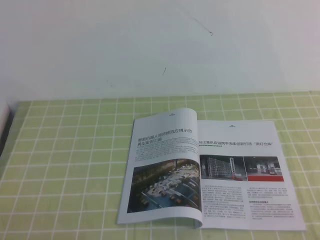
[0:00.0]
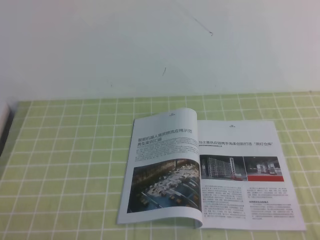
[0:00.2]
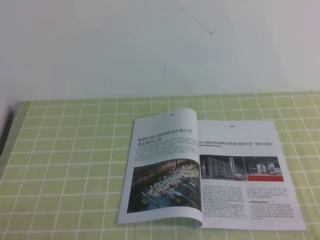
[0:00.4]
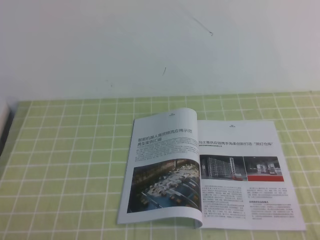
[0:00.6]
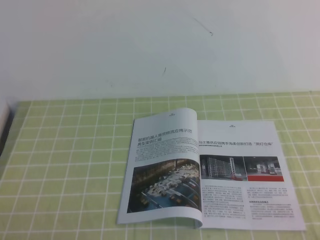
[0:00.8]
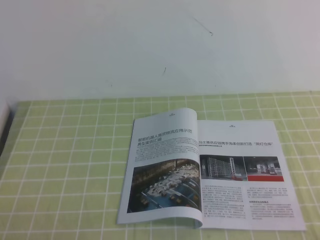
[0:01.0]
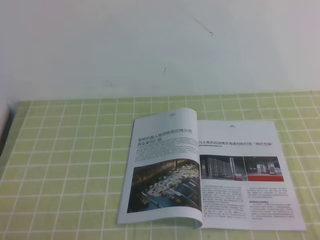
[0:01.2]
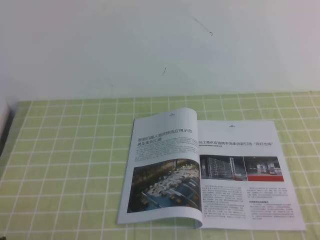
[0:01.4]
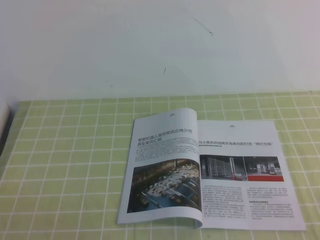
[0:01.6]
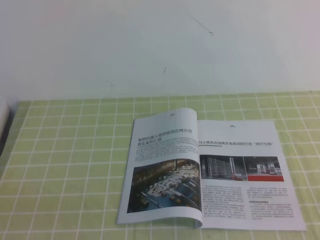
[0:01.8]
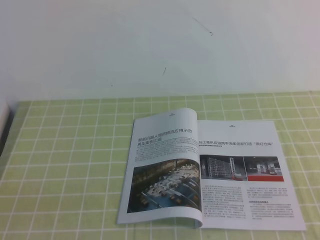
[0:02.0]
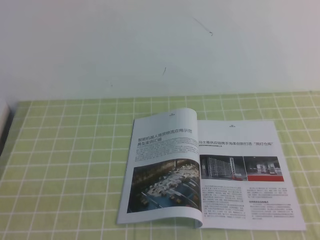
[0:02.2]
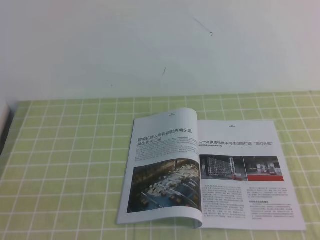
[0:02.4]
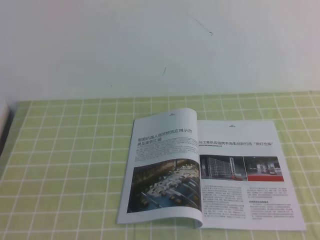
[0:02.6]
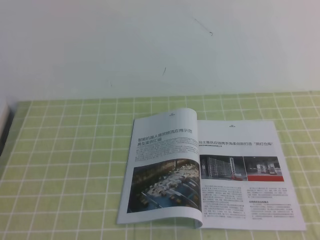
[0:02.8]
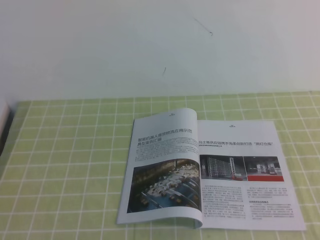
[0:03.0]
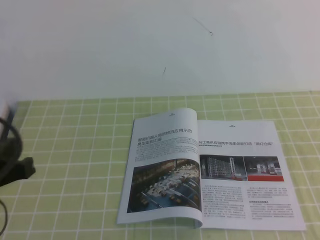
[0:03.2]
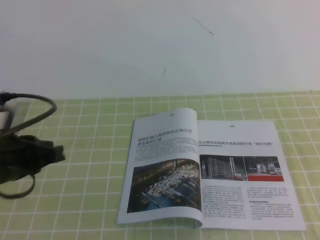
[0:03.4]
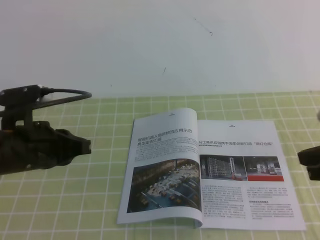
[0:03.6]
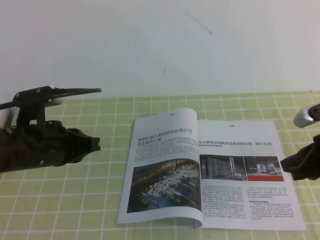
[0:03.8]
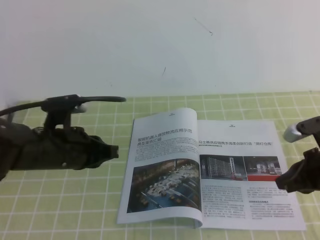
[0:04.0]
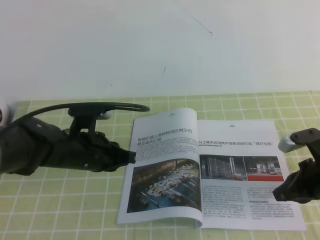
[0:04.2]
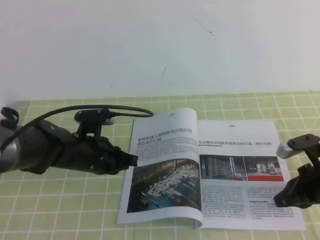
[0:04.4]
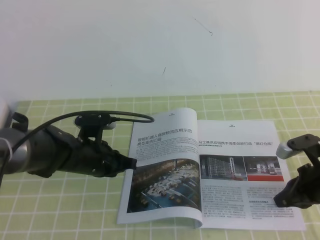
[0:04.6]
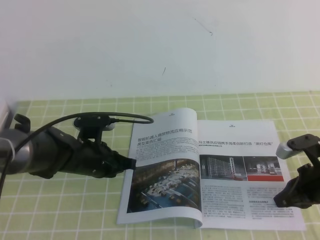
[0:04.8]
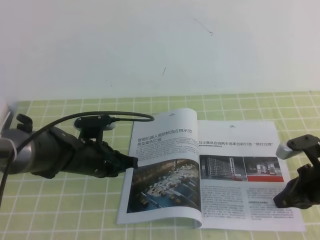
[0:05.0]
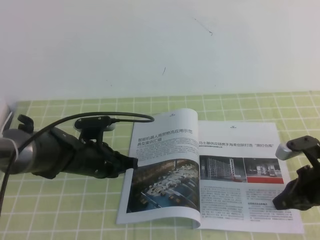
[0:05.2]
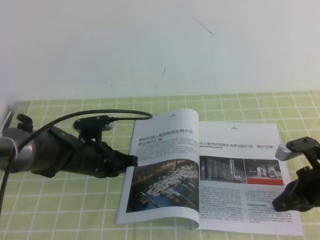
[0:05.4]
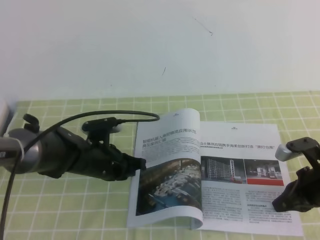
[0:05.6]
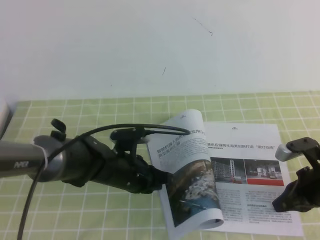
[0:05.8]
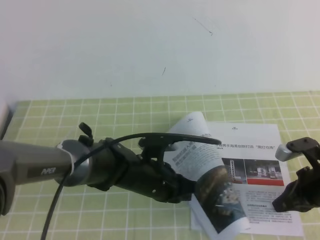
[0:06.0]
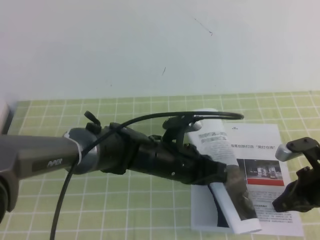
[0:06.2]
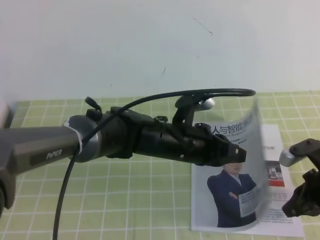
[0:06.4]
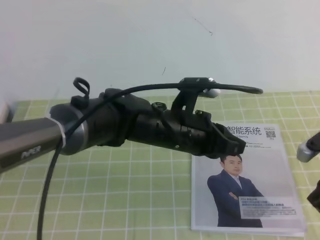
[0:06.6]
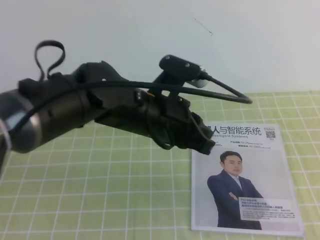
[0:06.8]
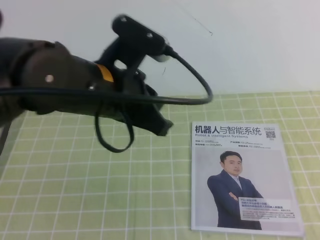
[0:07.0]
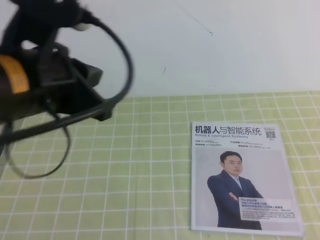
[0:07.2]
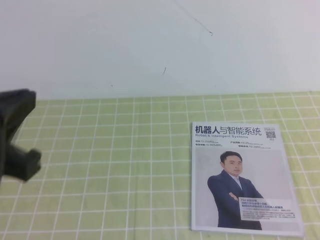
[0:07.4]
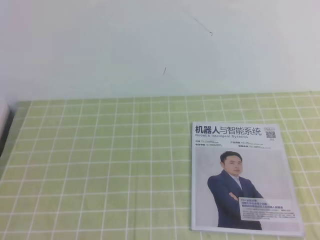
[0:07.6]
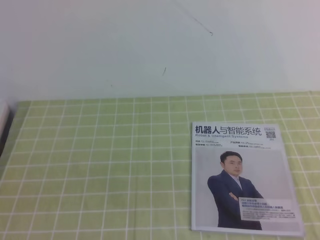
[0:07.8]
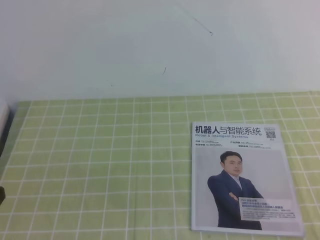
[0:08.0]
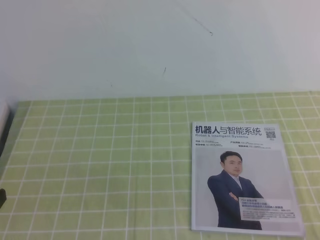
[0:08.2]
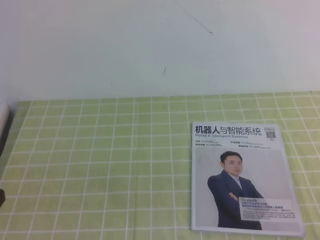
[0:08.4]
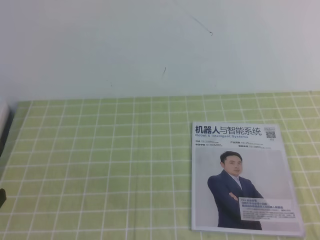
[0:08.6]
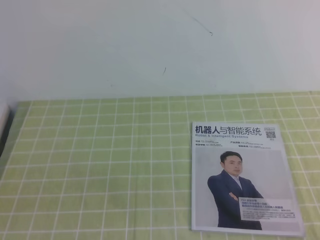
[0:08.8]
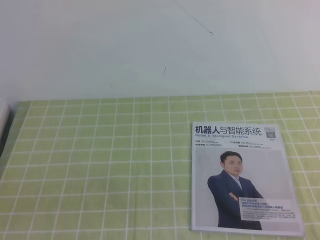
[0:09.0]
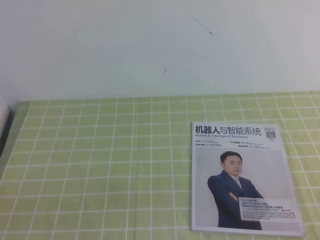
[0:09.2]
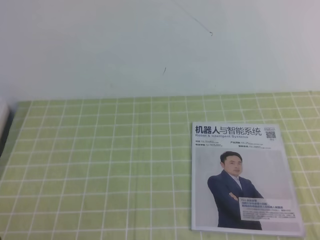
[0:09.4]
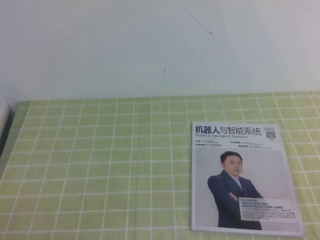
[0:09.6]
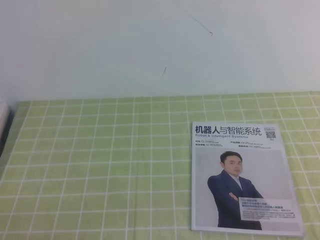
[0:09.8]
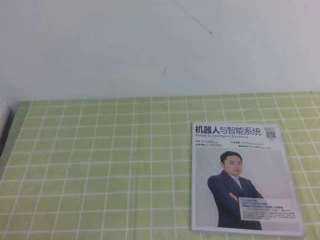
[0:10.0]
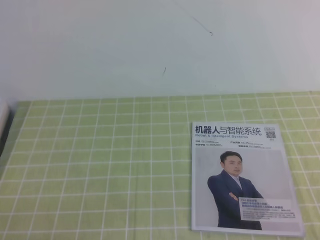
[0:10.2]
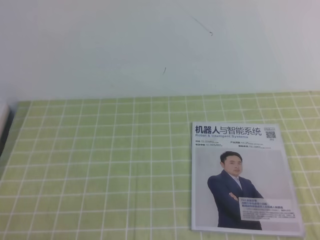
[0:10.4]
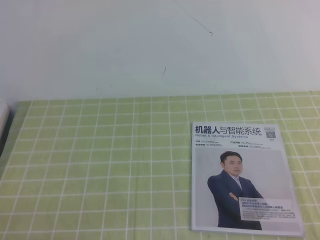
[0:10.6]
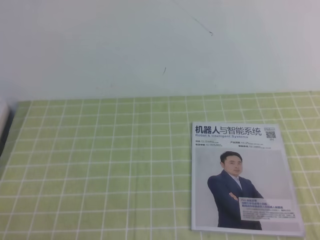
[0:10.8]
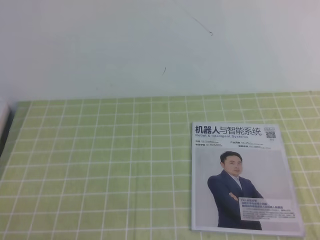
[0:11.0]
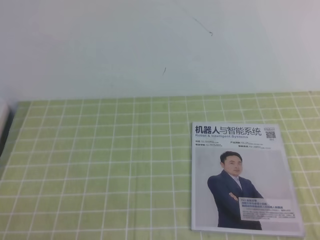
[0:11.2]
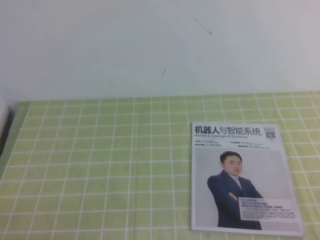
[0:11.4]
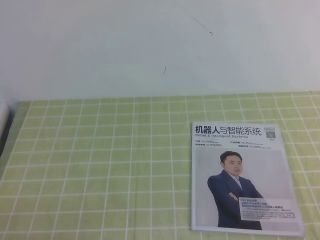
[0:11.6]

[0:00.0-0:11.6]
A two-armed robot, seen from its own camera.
Task of the whole recording: on the green tablecloth, hold the book with one hand and close it with the other.
0:02.8 to 0:04.4: The left gripper travels forward, downward and to the right by about 35 cm, while the right gripper shifts roughly 30 cm forward and downward.
0:04.4 to 0:05.8: The left gripper goes some 5 cm to the right.
0:05.8 to 0:07.2: The two grippers go some 25 cm upward and backward.
0:07.2 to 0:08.8: The right gripper travels backward and downward by about 15 cm. Meanwhile the left gripper shifts roughly 20 cm backward, to the left and downward.

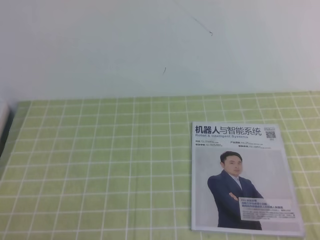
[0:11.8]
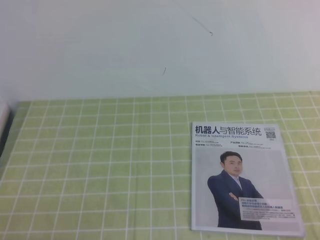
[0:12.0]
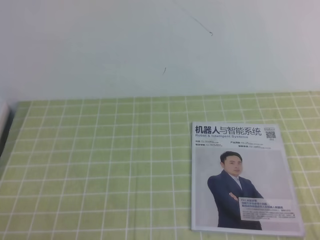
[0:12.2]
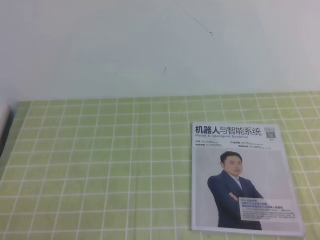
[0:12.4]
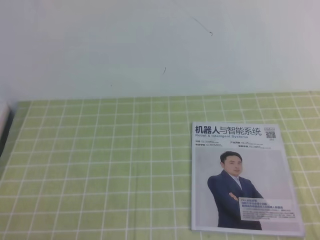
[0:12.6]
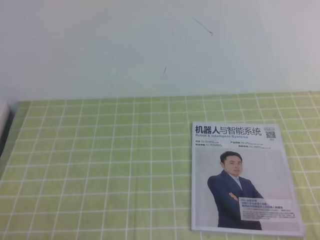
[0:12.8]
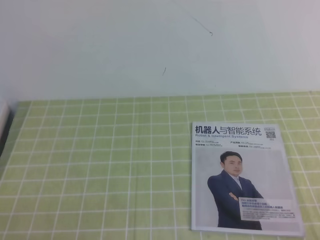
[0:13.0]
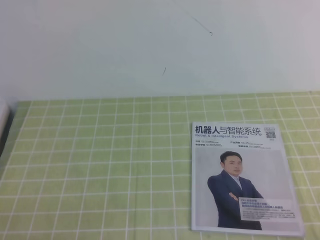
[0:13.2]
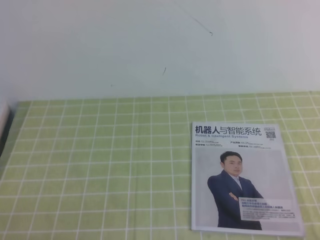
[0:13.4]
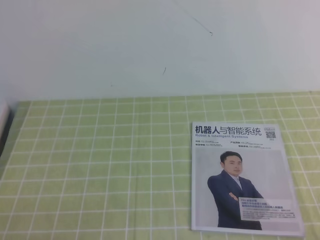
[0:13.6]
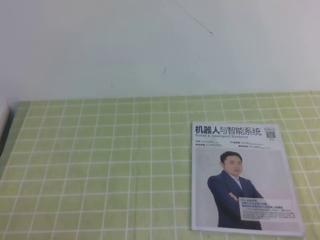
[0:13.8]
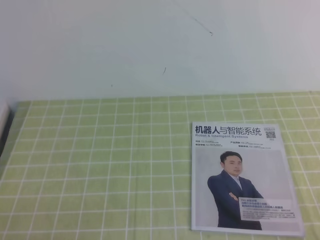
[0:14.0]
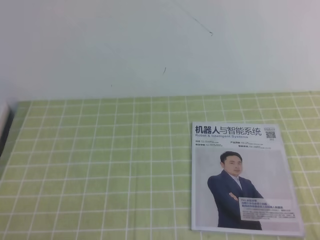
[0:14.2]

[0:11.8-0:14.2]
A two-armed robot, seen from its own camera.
Task of the whole recording: on the green tablecloth, hold the book with one hand and close it with the other.
0:13.0 to 0:14.2: Both grippers stay about where they are.
